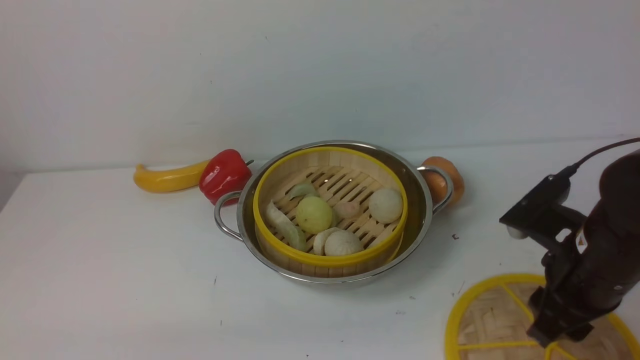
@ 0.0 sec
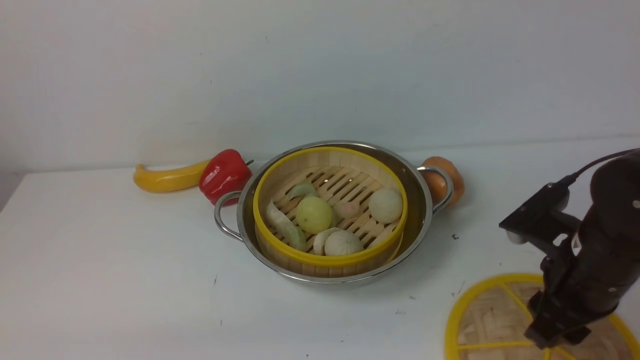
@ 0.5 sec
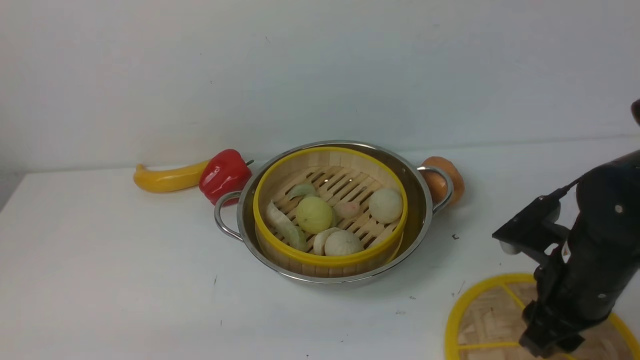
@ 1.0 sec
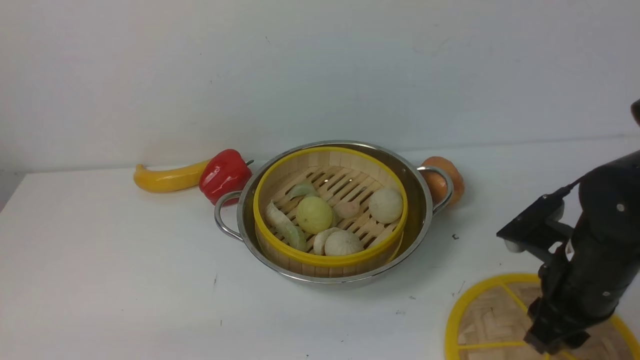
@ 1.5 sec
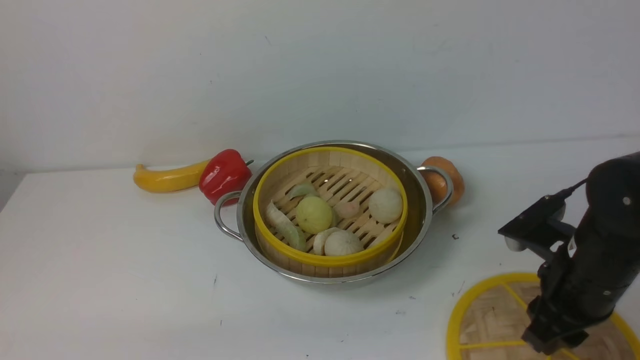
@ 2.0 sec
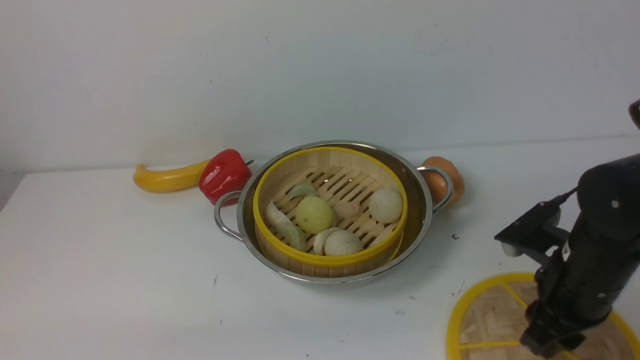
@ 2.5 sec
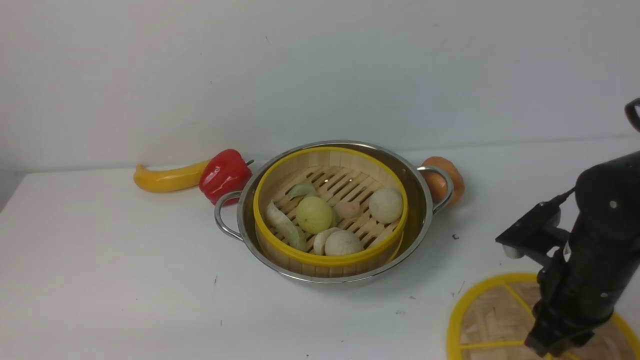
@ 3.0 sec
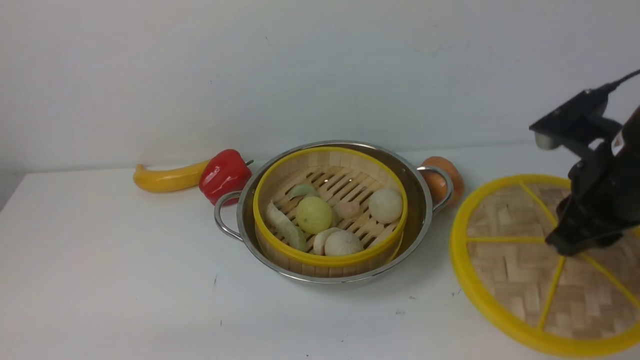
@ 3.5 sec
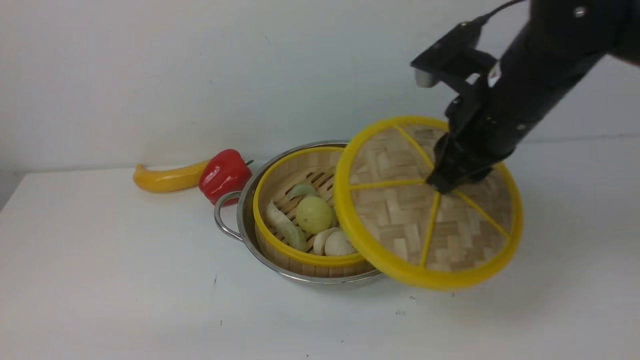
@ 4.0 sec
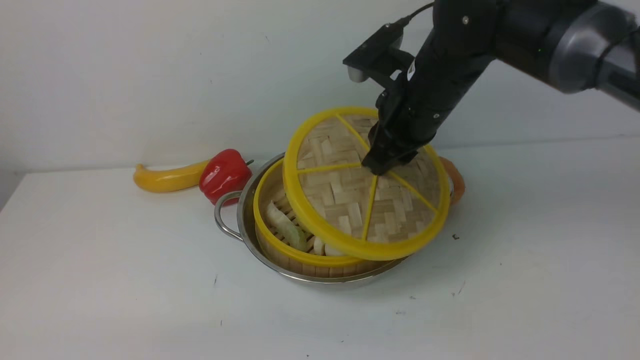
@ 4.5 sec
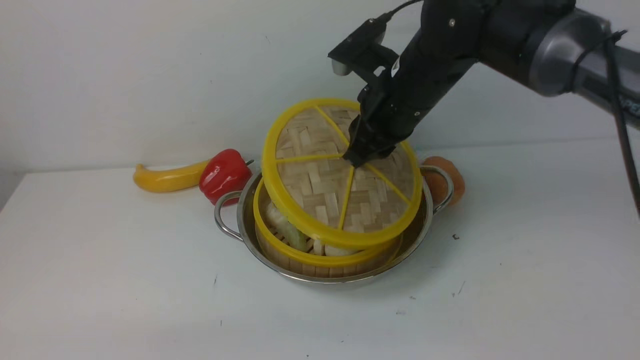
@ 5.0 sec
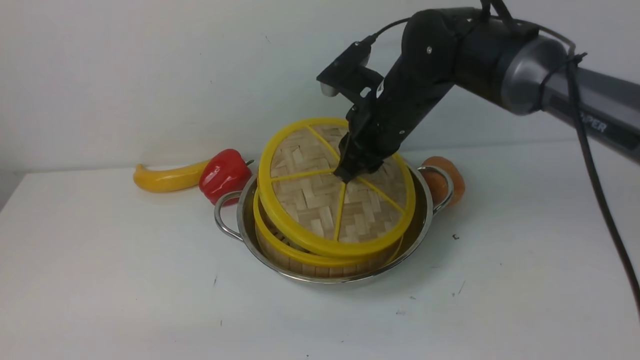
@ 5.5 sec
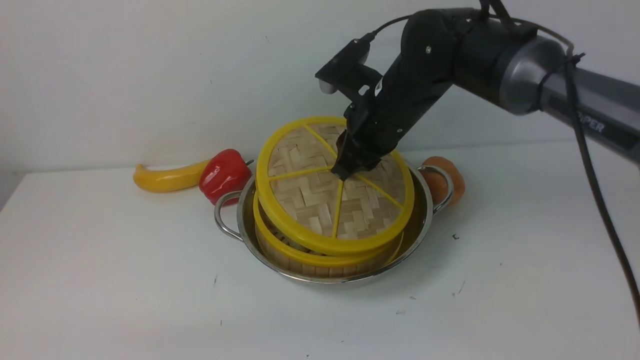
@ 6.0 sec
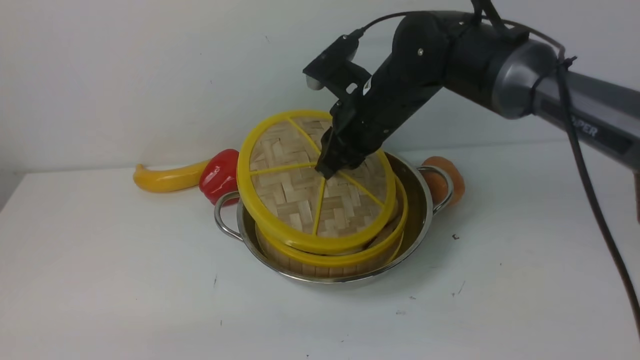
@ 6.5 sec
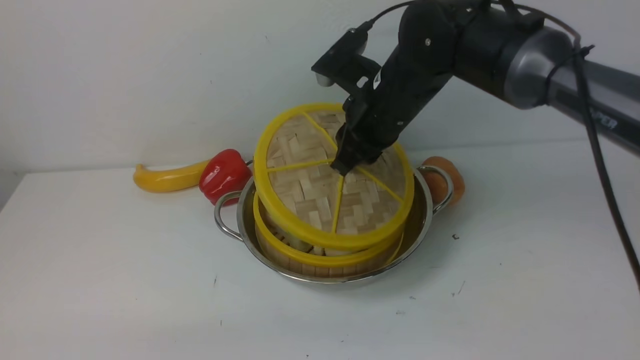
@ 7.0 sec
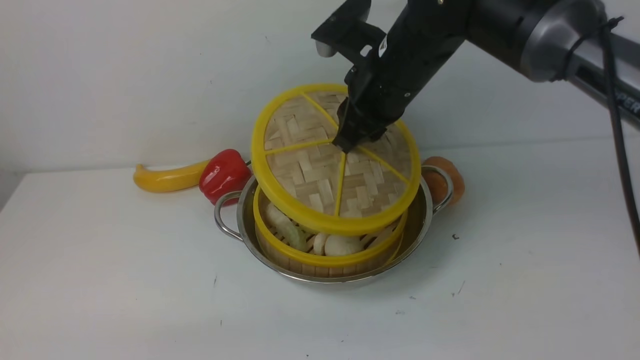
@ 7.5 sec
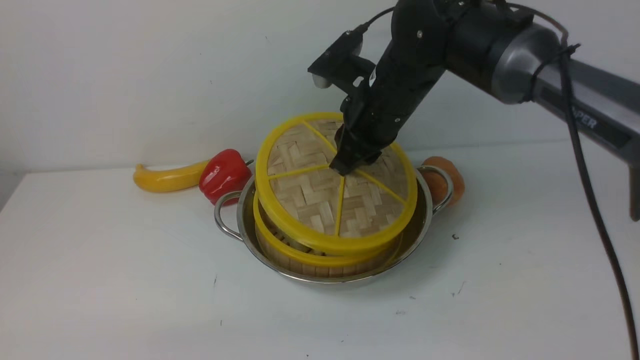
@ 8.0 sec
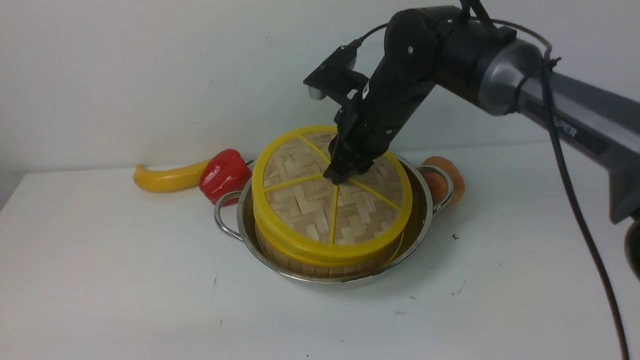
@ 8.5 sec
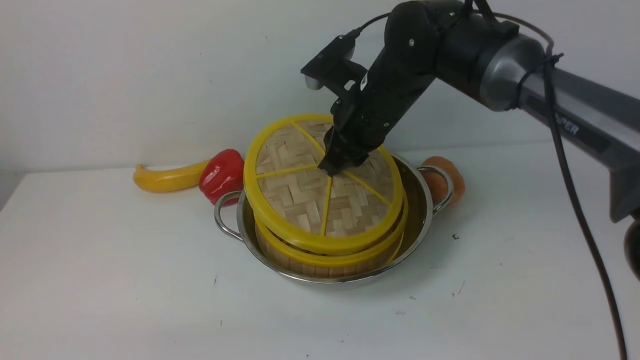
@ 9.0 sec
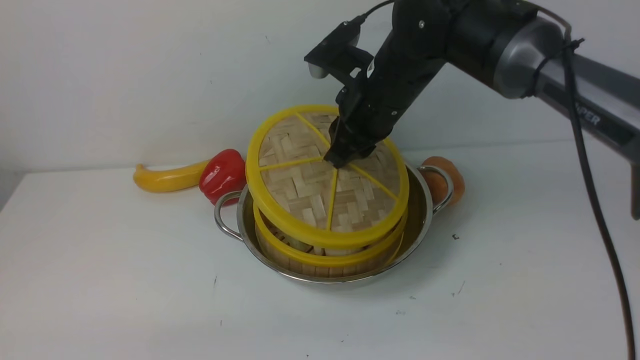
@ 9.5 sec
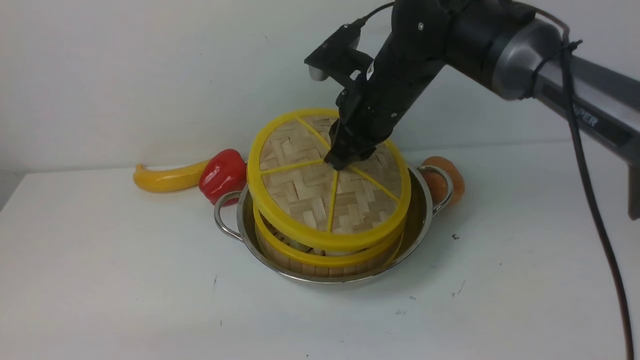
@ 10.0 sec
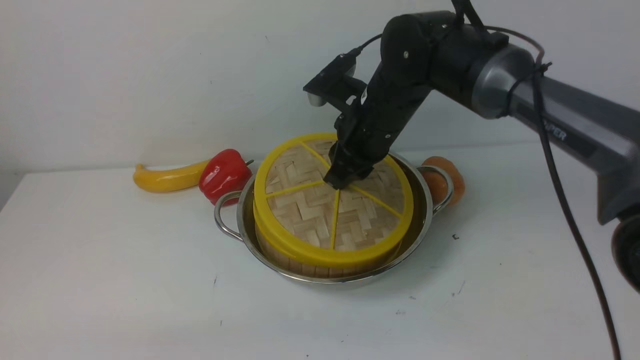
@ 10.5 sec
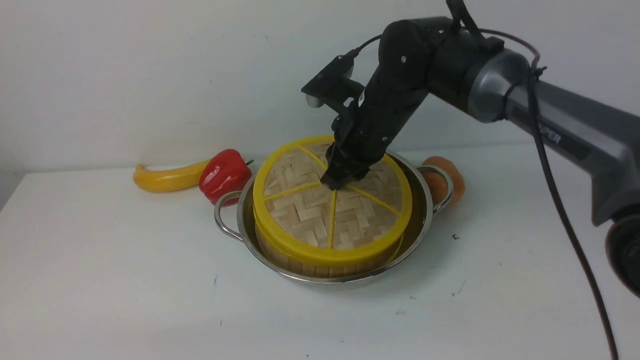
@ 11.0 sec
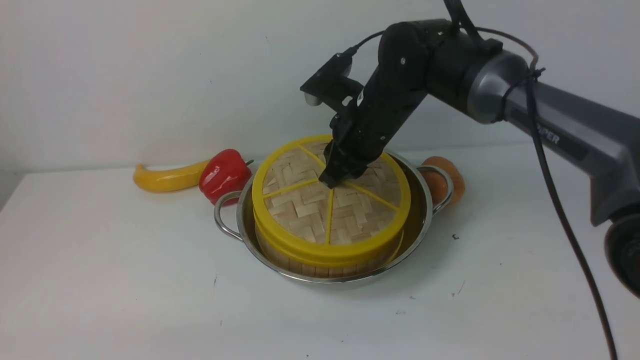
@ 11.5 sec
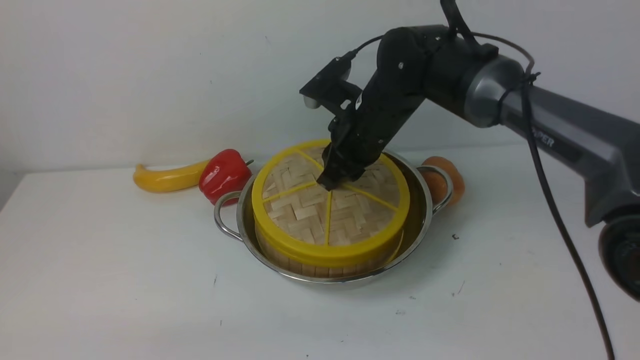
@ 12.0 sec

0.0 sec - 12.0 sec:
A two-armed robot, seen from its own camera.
Task of the whole recording: place the steamer in the pot on the white table, and put the lid on the steamer.
Step, 0.0 sec - 3.5 sec: use the right arm to lift the lid of the steamer.
0.0 sec - 2.0 sec: There are only small adjustments of the grippers.
2.0 sec - 4.0 sec: The right gripper shifts about 15 cm upward, to the left and forward, and closes its fingers.
4.0 sec - 6.0 sec: The right gripper moves to the left, forward and downward, about 15 cm.
6.0 sec - 8.0 sec: The grippers move only a little.
8.0 sec - 10.0 sec: The two grippers keep their place.
10.0 sec - 12.0 sec: The grippers stay close to where they were, moving slightly.

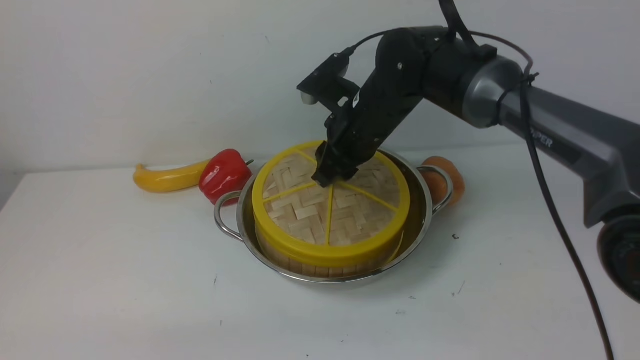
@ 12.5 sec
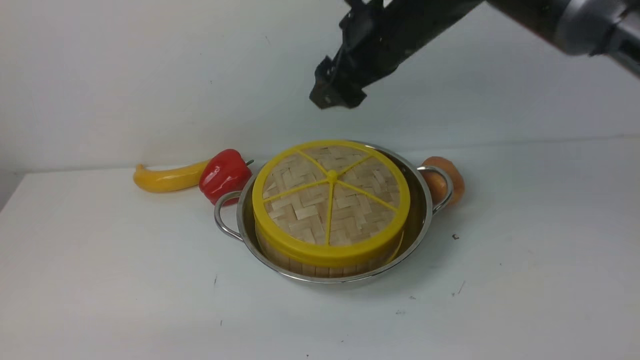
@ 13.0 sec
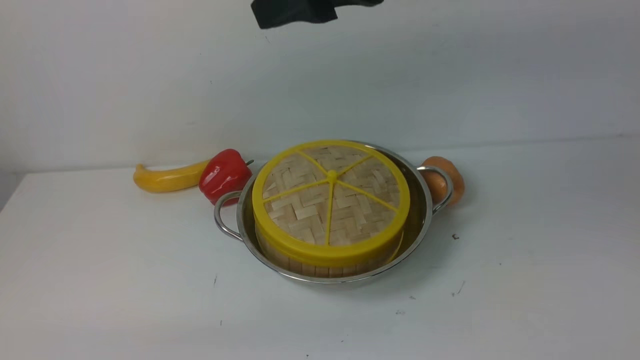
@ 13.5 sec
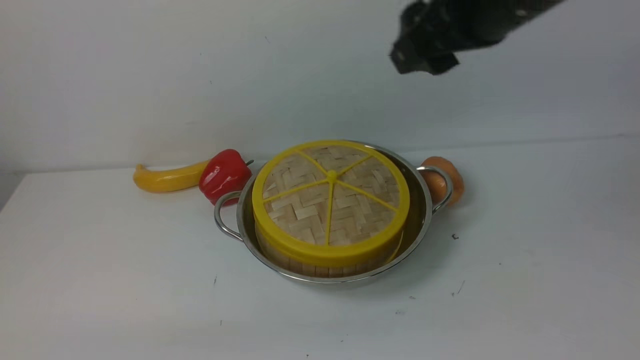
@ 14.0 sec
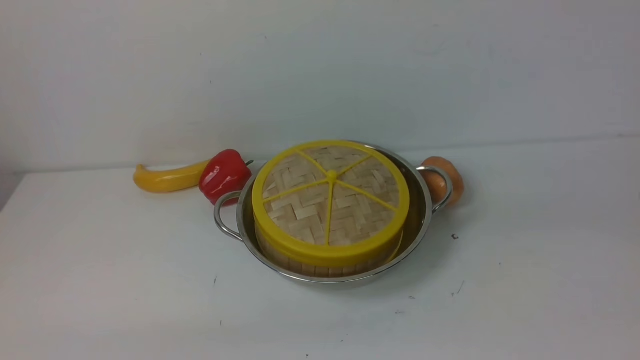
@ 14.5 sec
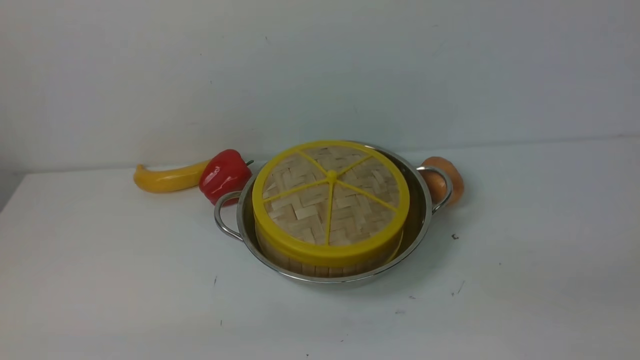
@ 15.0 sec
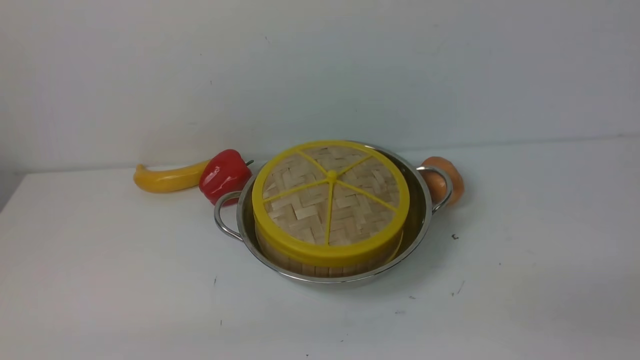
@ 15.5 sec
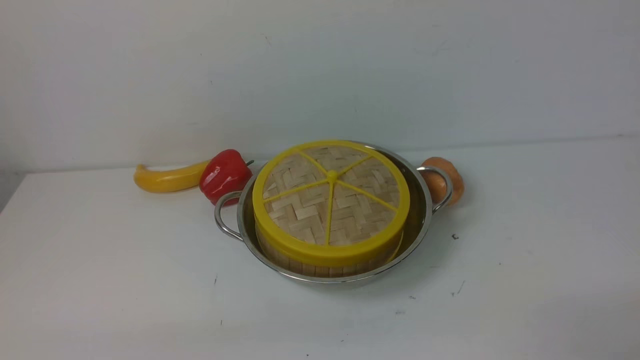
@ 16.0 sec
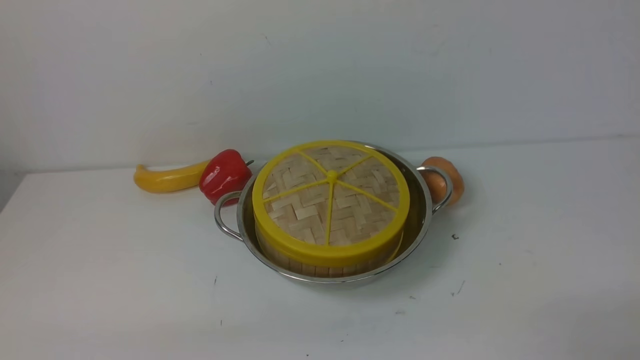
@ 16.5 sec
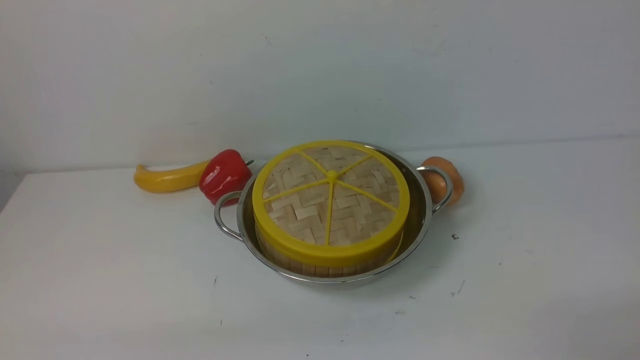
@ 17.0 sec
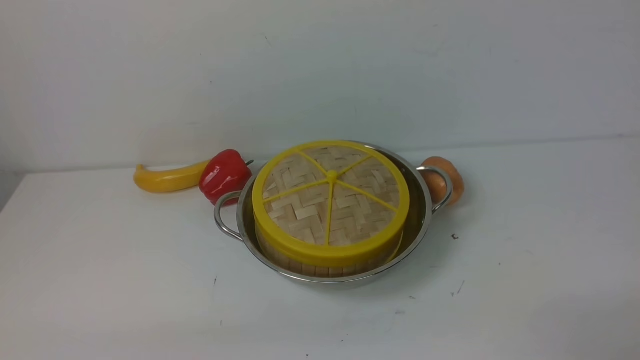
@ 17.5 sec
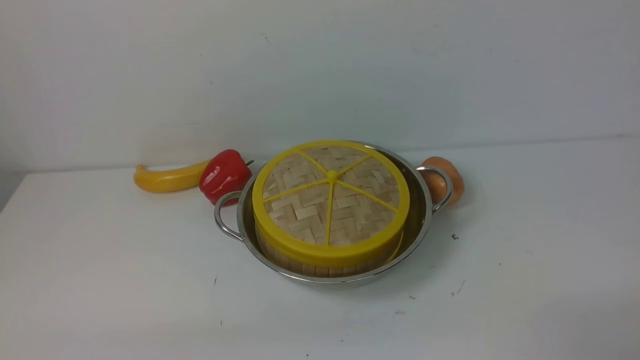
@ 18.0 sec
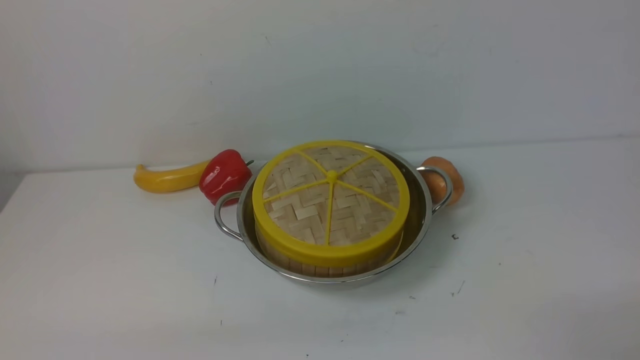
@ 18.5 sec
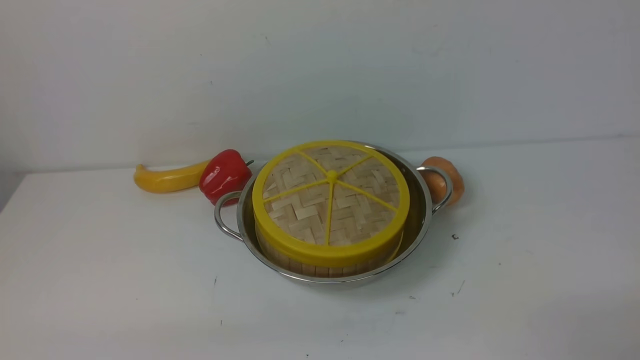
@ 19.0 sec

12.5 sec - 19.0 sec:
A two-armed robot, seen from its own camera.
Task of the whole recording: place the steamer in the pot on the white table, and put the lid on the steamer.
12.5 sec - 14.5 sec: The right gripper travels to the right and backward by roughly 35 cm, and opens.
17.0 sec - 19.0 sec: Both grippers stay about where they are.

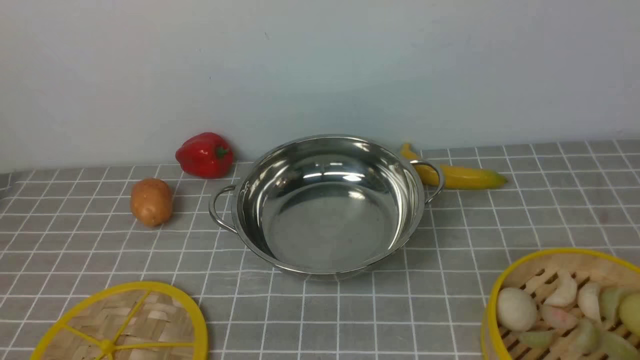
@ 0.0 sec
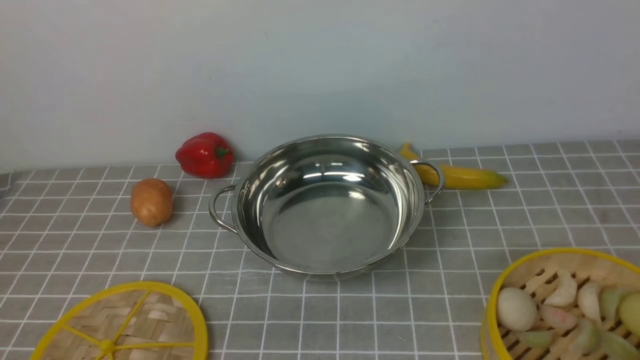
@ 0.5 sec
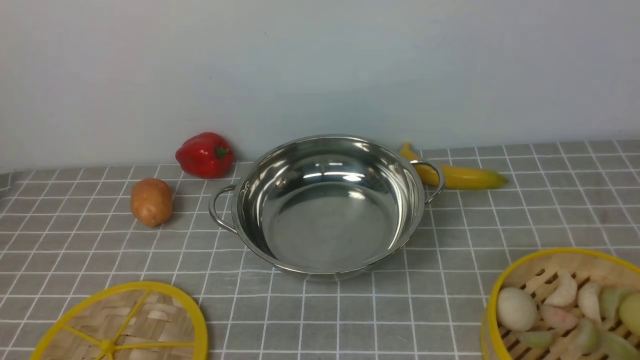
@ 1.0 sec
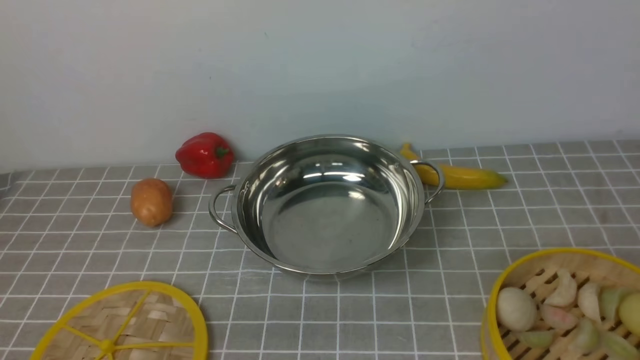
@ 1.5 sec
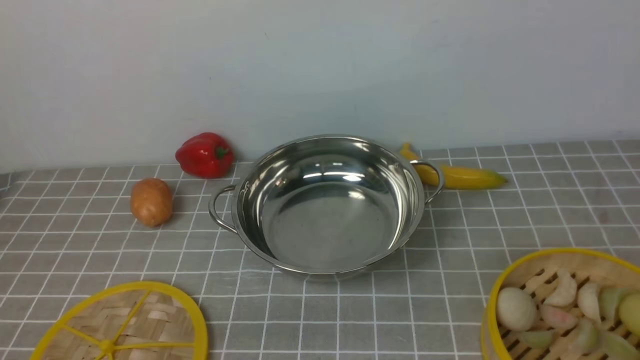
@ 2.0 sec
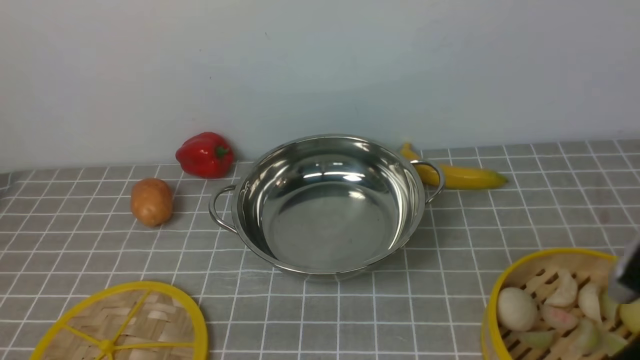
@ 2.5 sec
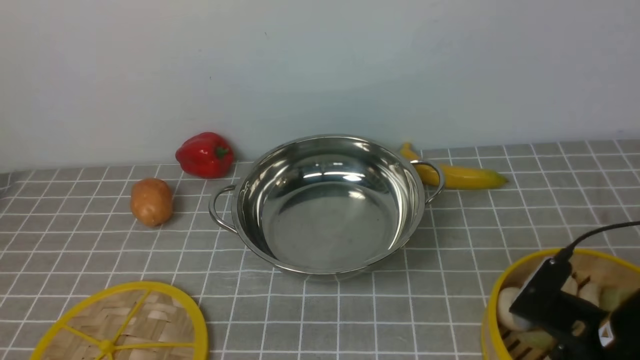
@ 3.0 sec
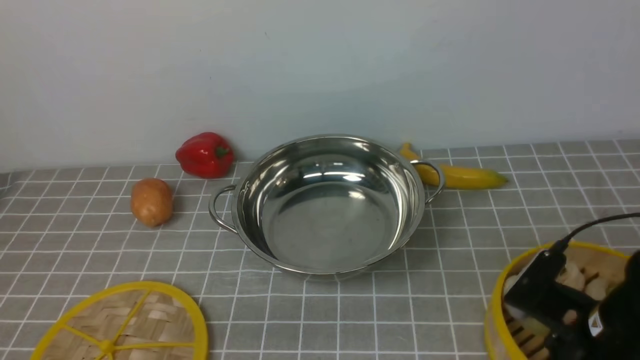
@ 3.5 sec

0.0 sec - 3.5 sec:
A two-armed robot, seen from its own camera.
Task of the whole recording: place the steamer in the pot on the grey tablecloth, and put the lid on the steamer.
2.0 sec - 3.5 sec: The right gripper is displaced forward, downward and to the left by some 20 cm, and closes.
